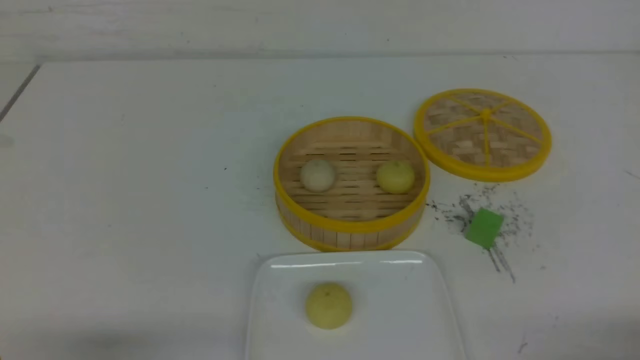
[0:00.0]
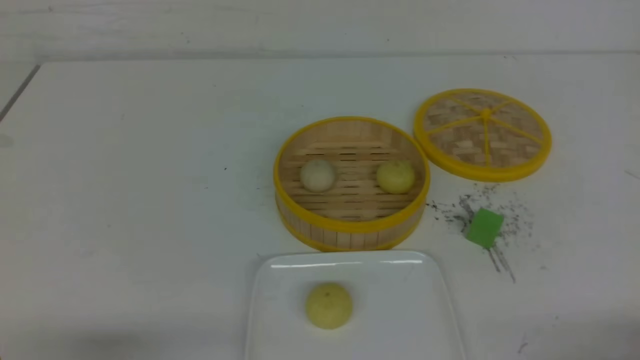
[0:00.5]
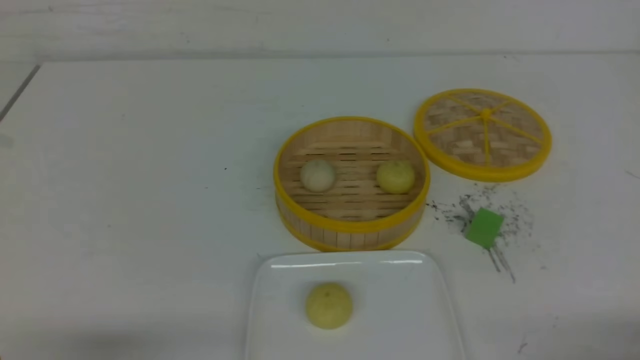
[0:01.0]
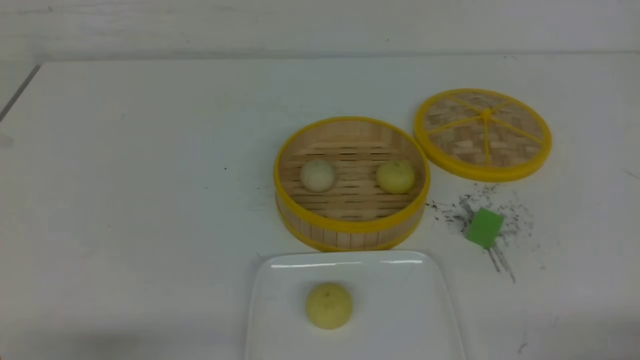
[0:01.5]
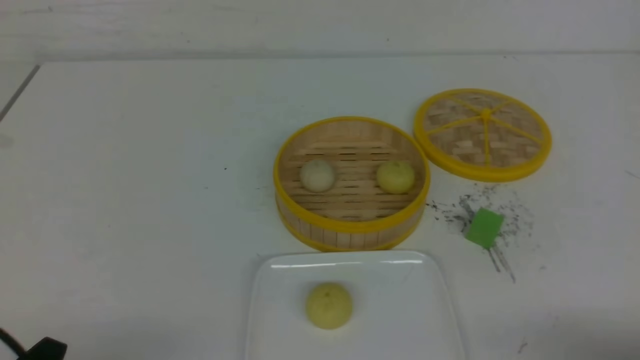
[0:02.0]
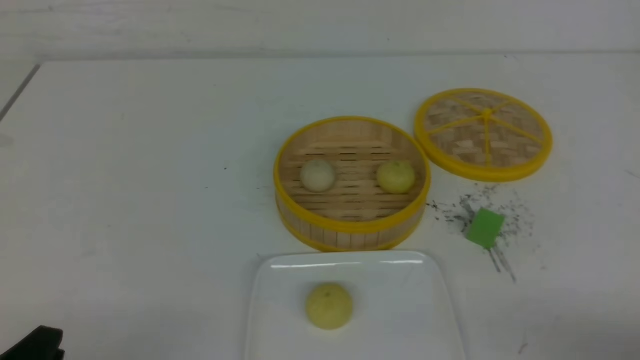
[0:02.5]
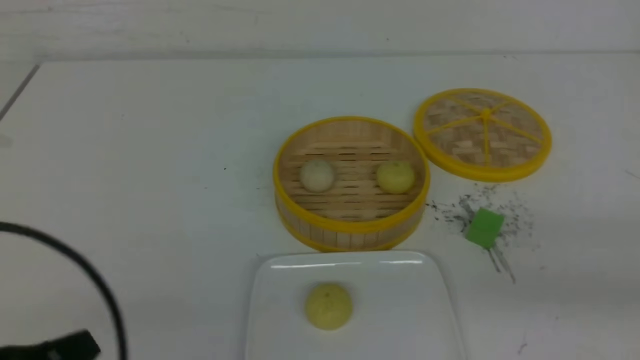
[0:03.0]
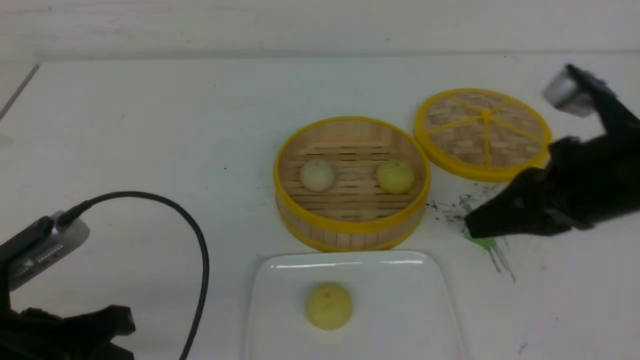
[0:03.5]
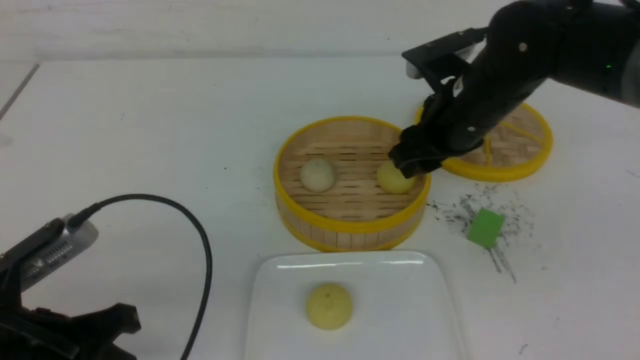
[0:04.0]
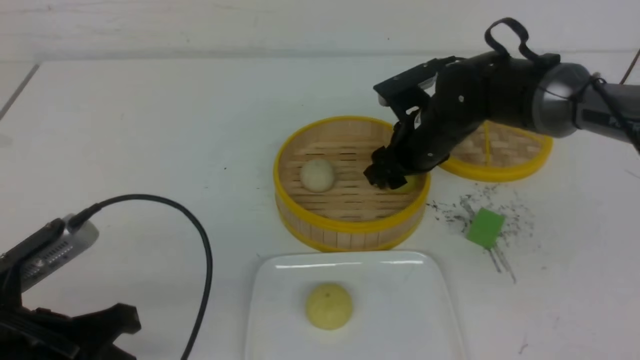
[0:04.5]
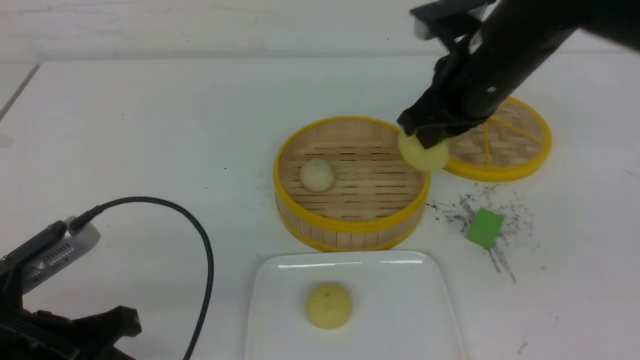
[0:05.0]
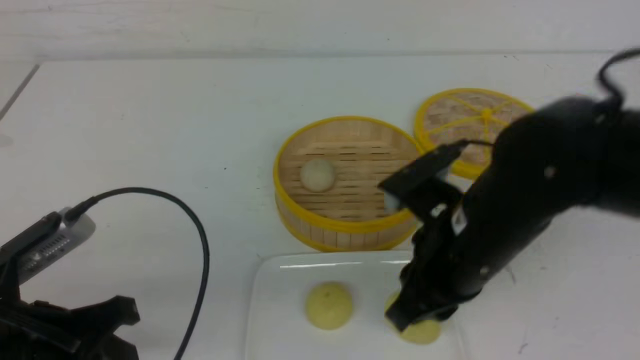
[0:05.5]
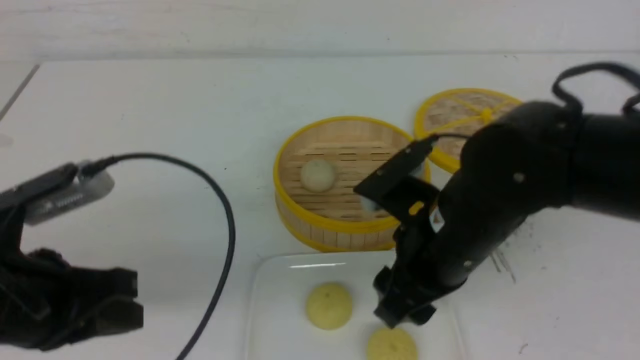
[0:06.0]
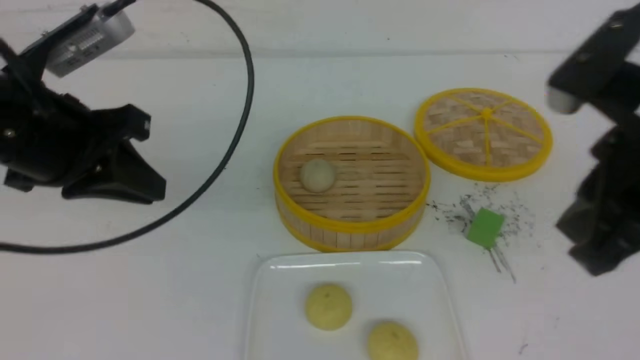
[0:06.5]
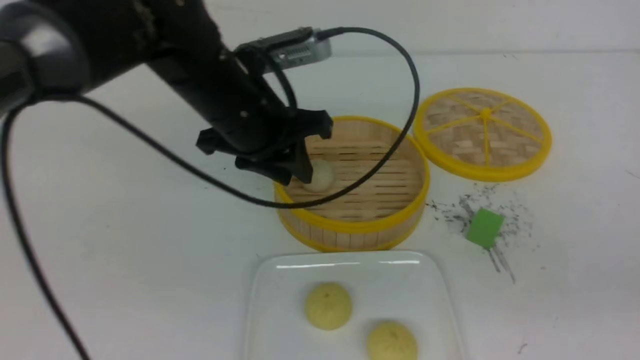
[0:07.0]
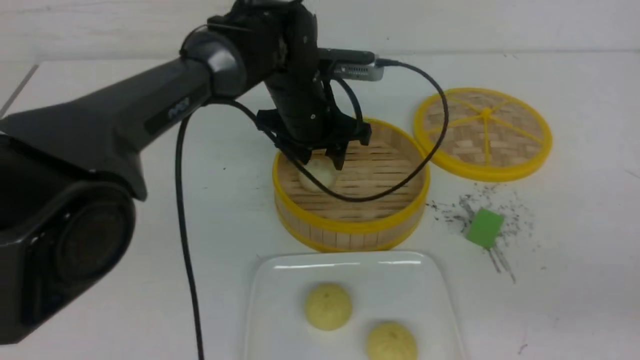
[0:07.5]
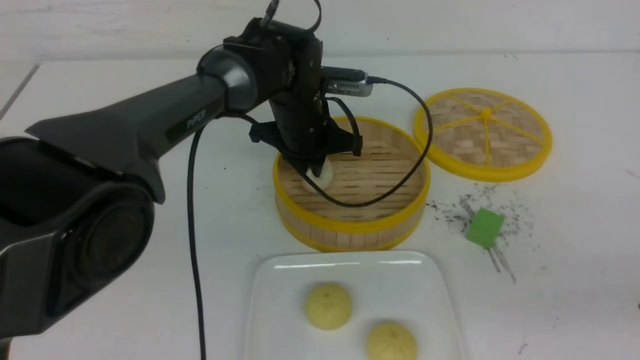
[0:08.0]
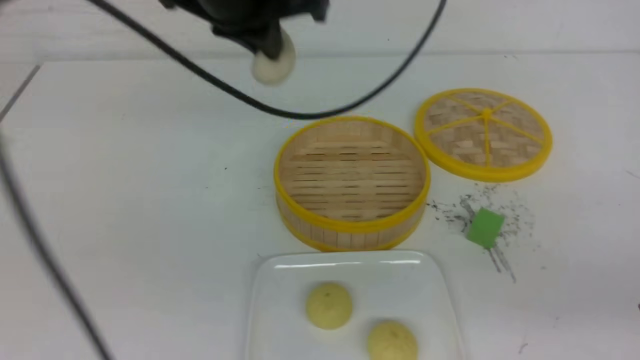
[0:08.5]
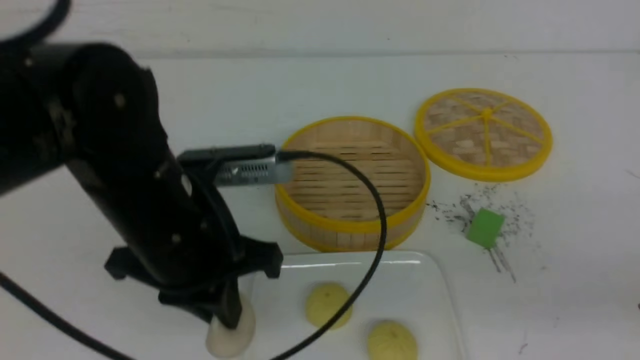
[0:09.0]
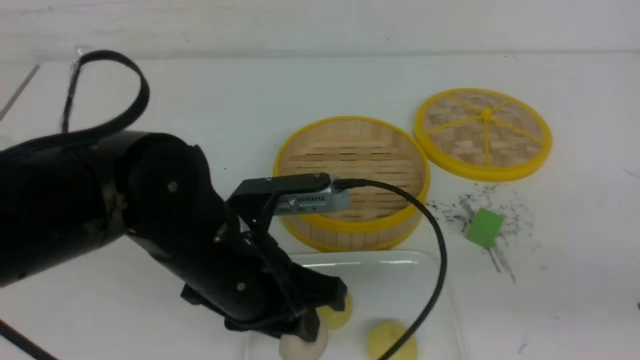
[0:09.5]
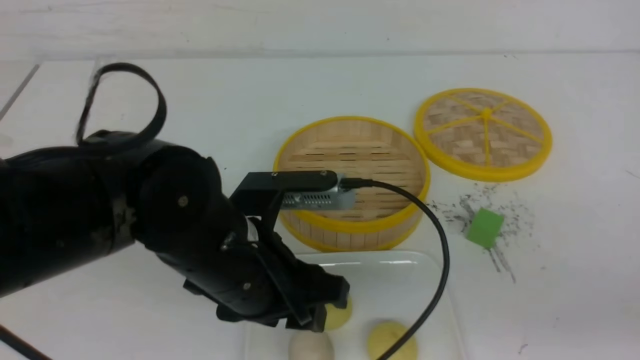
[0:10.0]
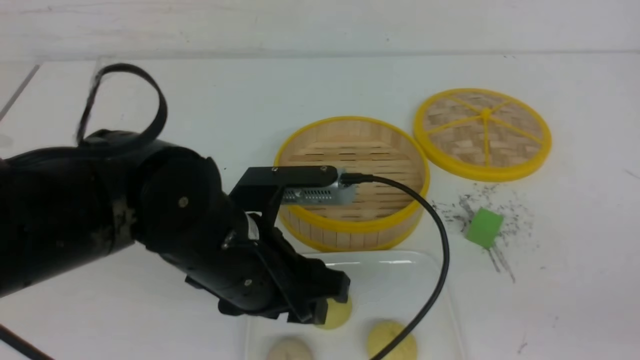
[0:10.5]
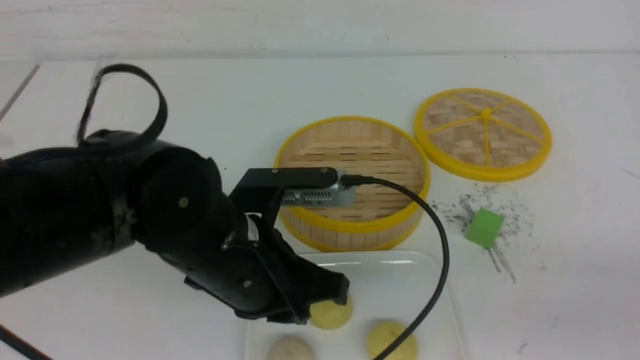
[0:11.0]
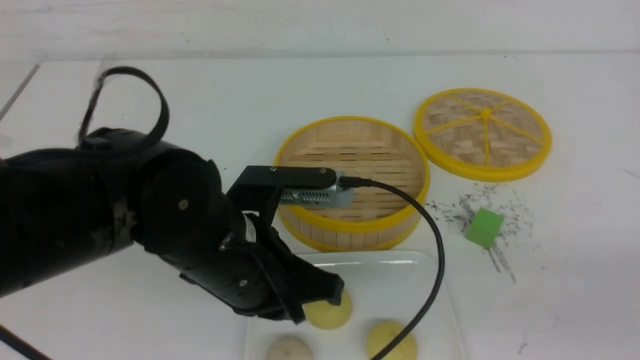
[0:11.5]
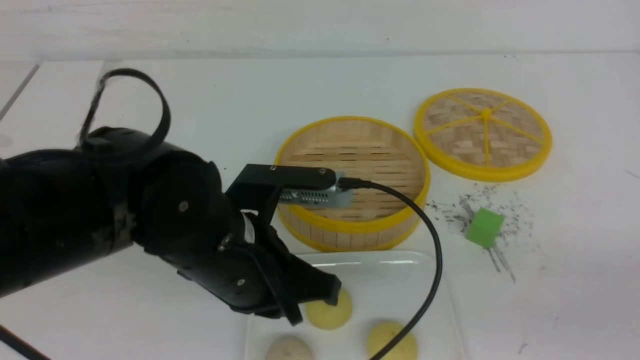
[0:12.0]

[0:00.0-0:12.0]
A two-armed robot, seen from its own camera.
Step, 0:00.0 to 0:04.5: use the right arm to grab the steamed stuffed bun that is closest to it.
Step, 0:05.0 to 0:06.0: use the right arm to put the steamed stuffed bun into the plate.
Step, 0:06.5 to 0:07.5: use the left arm to grab the steamed stuffed bun that is closest to it.
Step, 0:08.0 to 0:10.0: use the left arm to put the steamed stuffed bun into the plate.
0:02.0 to 0:04.0: The right gripper heads forward and to the left, covering roughly 35 cm, and closes, then opens again, while the left gripper heads forward and upward, covering roughly 10 cm, and closes up.
0:04.0 to 0:06.0: The right gripper travels backward by some 15 cm, and closes and opens again; the left gripper moves upward, approximately 5 cm.
0:06.0 to 0:08.0: The right gripper travels to the right and backward by roughly 20 cm, and closes its fingers. The left gripper travels forward and to the right by about 35 cm, and opens, then closes once more.
0:08.0 to 0:10.0: The left gripper goes some 20 cm backward, and opens.
0:10.0 to 0:12.0: The right gripper changes place by roughly 5 cm. Meanwhile the left gripper closes.

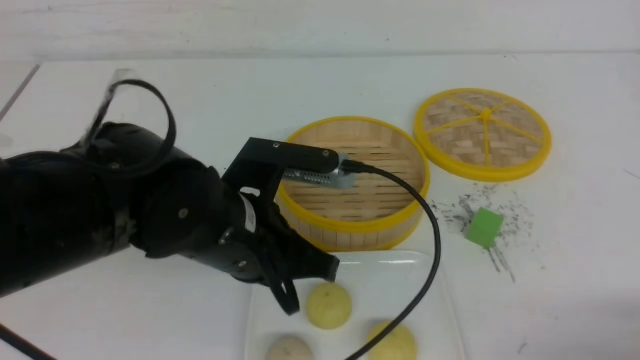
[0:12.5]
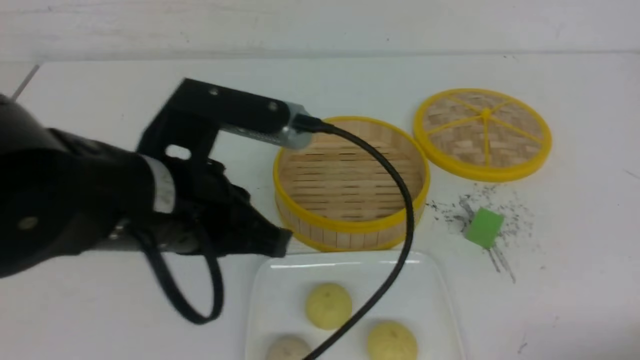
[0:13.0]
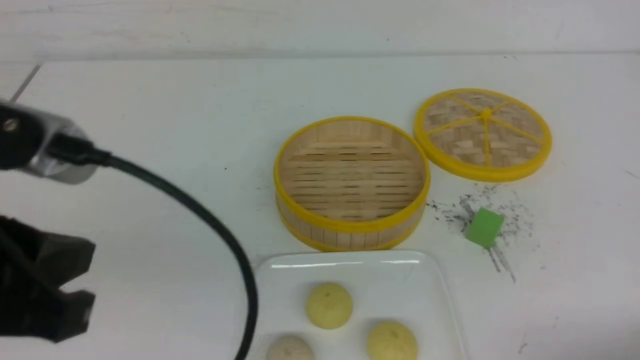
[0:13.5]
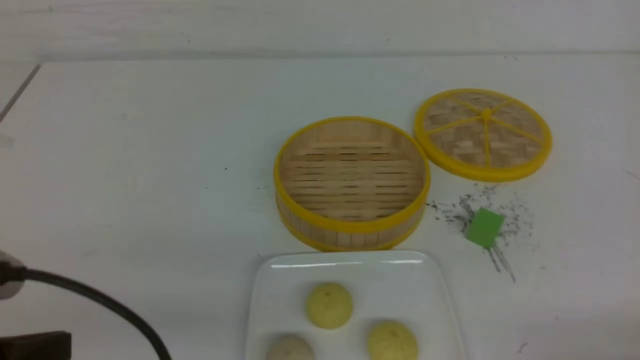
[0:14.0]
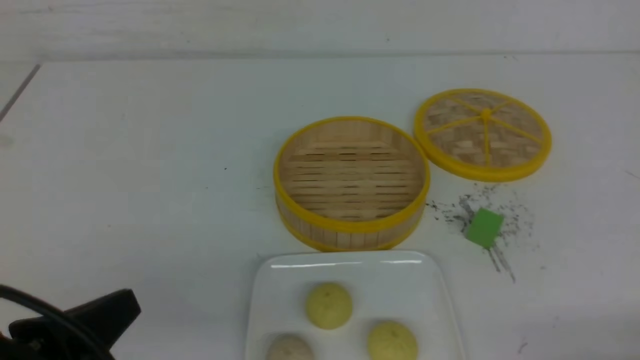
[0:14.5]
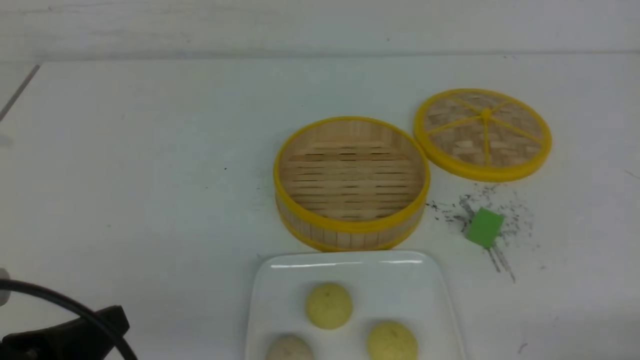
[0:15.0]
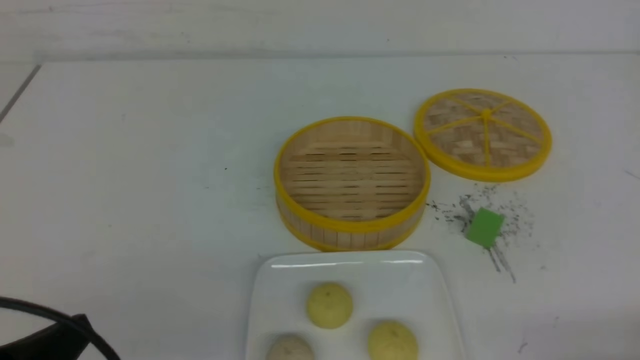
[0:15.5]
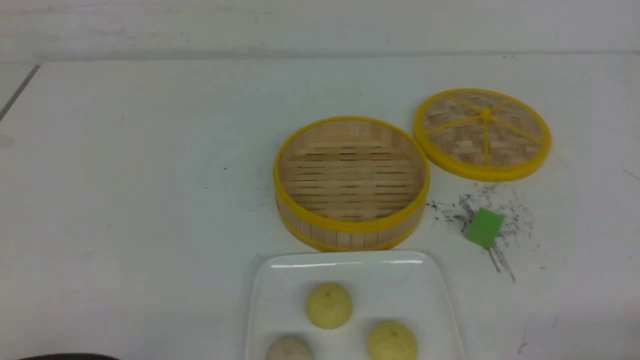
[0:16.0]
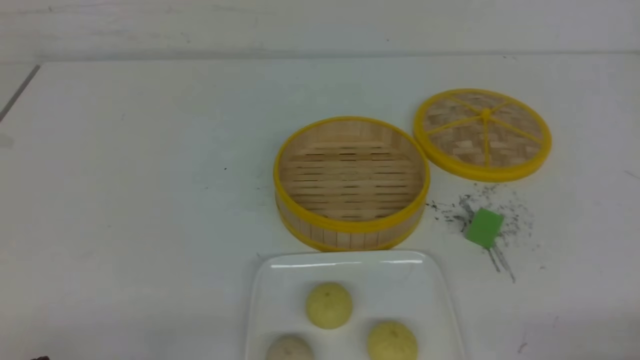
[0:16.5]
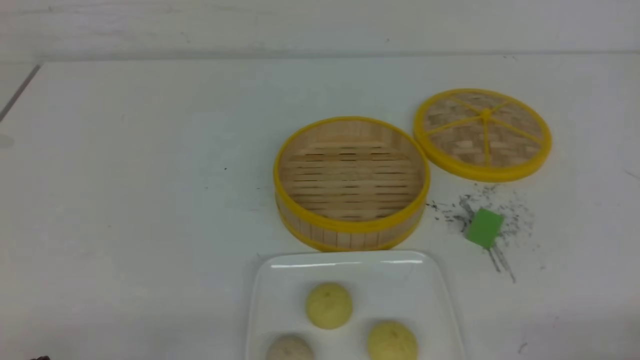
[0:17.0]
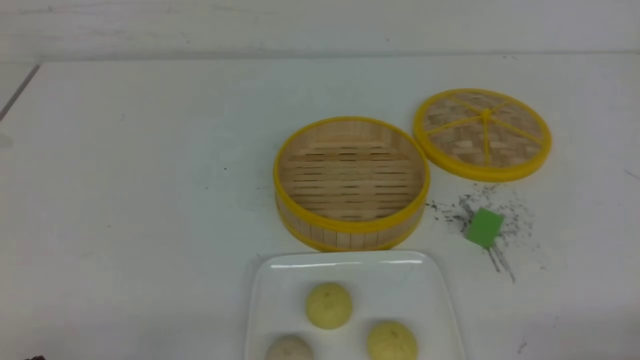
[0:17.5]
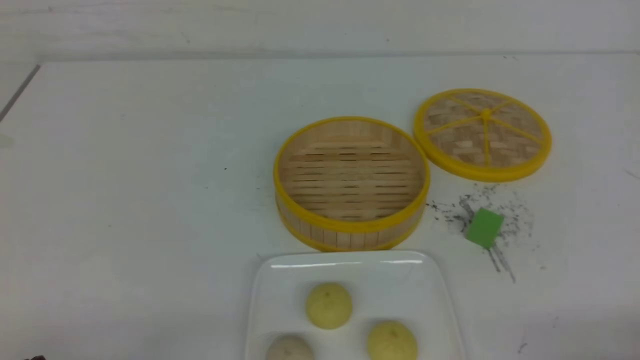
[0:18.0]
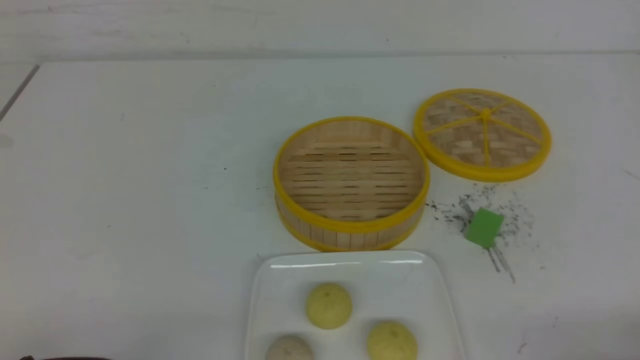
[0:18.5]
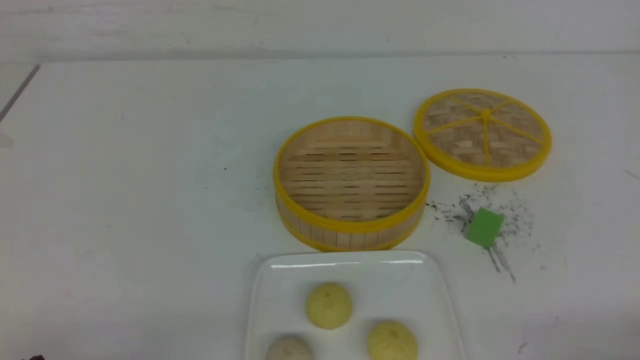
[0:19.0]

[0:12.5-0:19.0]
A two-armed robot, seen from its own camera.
0:12.5 to 0:14.5: The left gripper goes some 20 cm to the left and backward.
0:14.5 to 0:17.0: The left gripper is displaced downward by some 10 cm.
0:17.0 to 0:19.0: The two grippers keep their place.
